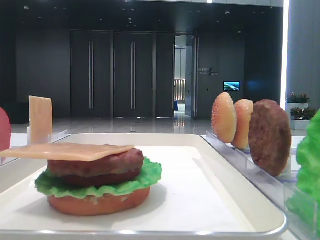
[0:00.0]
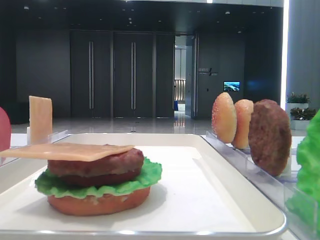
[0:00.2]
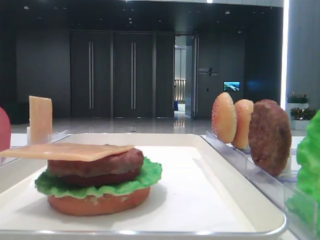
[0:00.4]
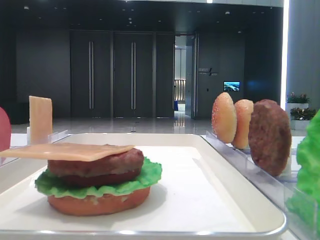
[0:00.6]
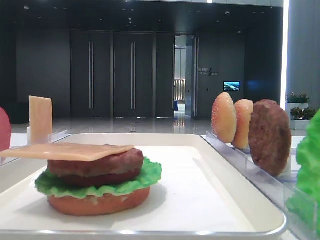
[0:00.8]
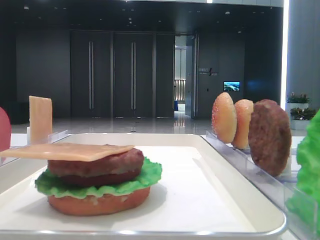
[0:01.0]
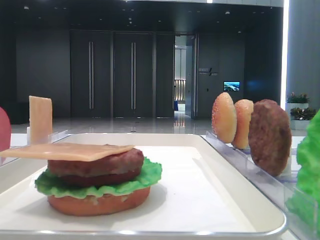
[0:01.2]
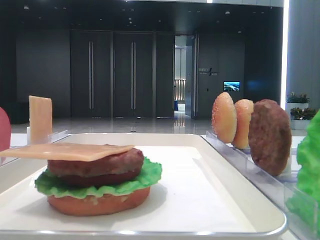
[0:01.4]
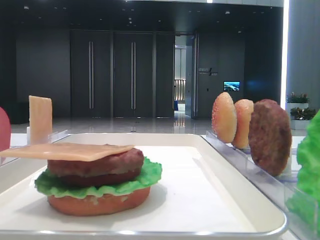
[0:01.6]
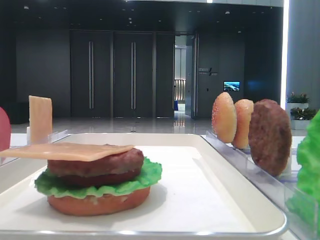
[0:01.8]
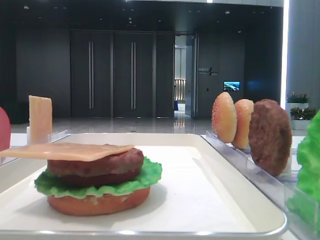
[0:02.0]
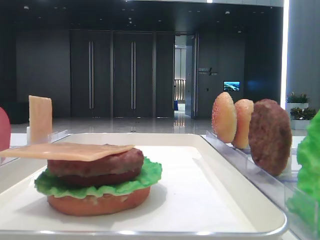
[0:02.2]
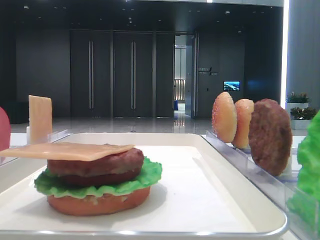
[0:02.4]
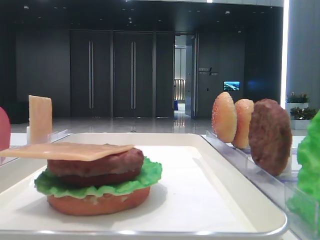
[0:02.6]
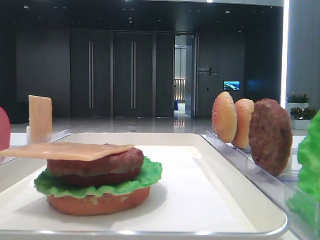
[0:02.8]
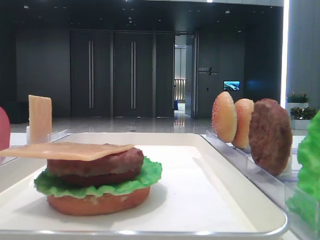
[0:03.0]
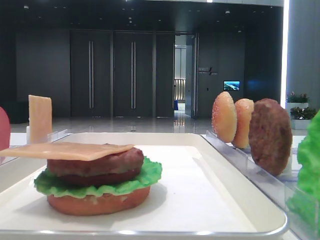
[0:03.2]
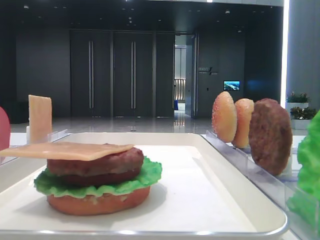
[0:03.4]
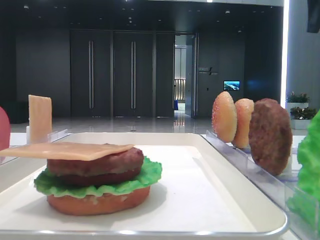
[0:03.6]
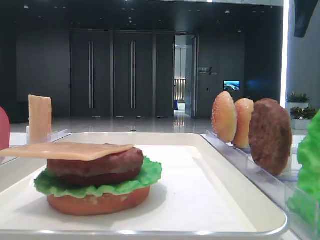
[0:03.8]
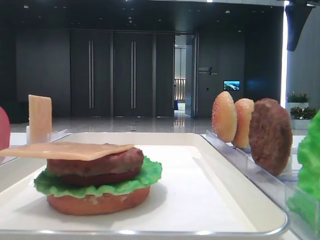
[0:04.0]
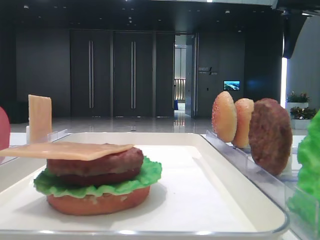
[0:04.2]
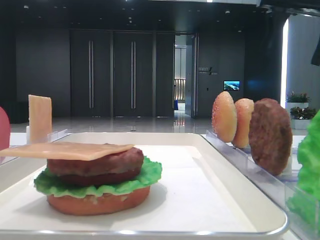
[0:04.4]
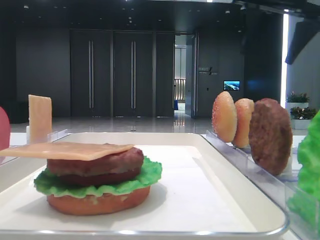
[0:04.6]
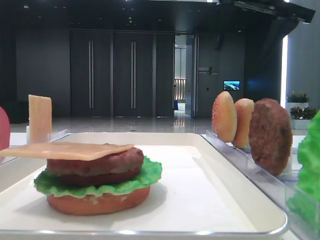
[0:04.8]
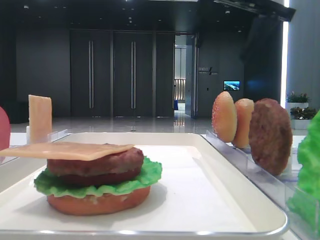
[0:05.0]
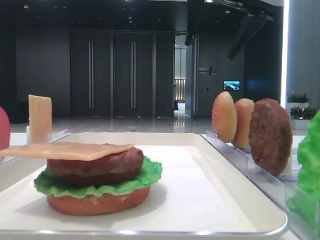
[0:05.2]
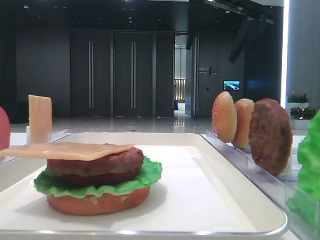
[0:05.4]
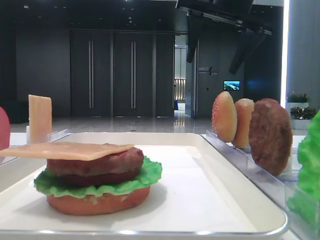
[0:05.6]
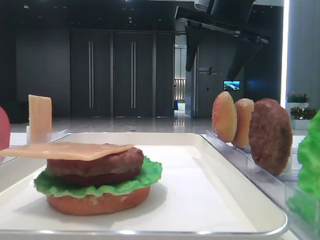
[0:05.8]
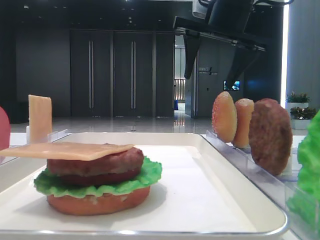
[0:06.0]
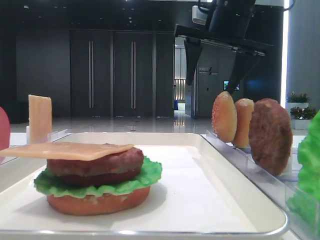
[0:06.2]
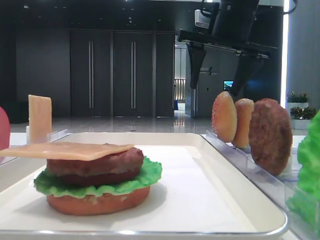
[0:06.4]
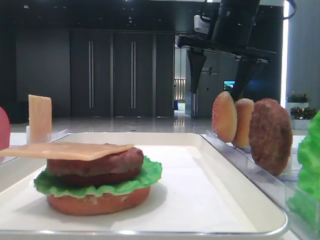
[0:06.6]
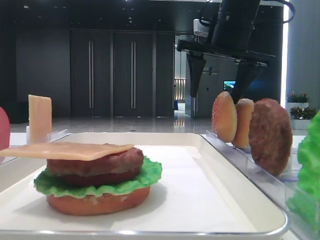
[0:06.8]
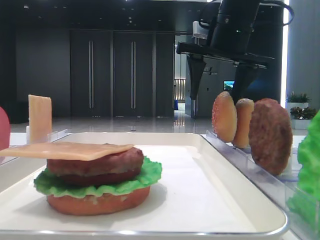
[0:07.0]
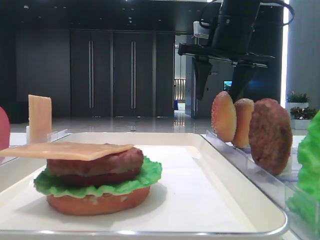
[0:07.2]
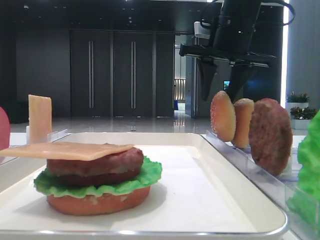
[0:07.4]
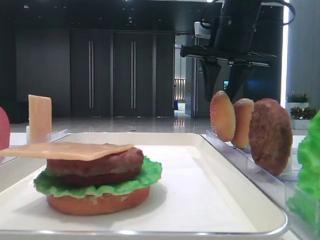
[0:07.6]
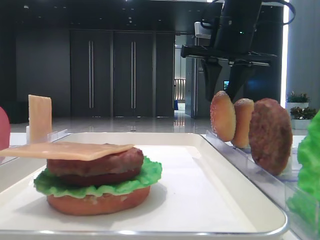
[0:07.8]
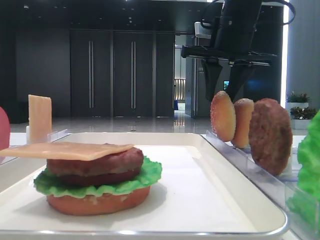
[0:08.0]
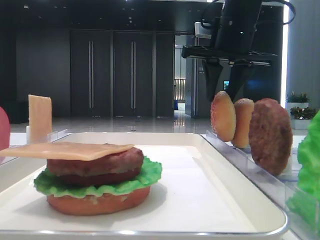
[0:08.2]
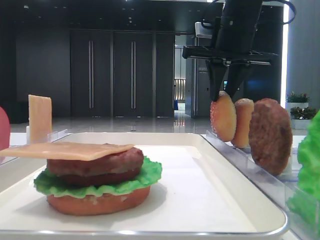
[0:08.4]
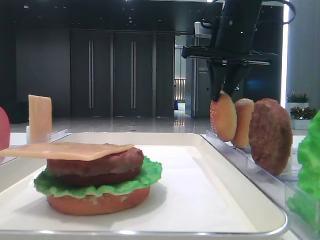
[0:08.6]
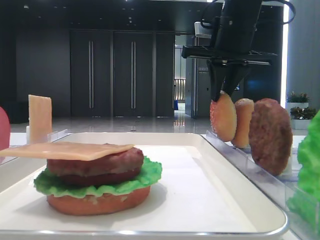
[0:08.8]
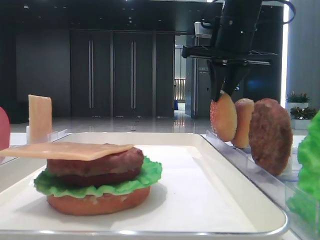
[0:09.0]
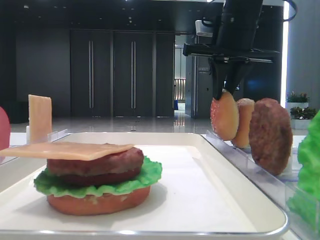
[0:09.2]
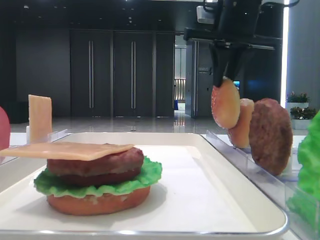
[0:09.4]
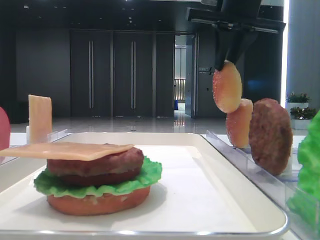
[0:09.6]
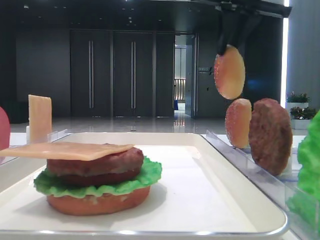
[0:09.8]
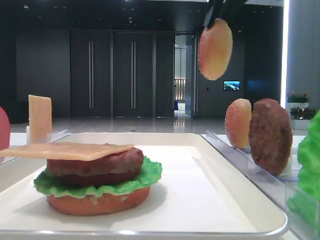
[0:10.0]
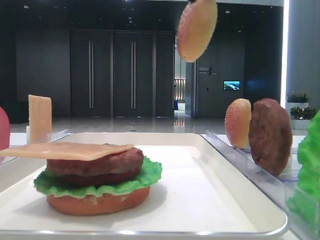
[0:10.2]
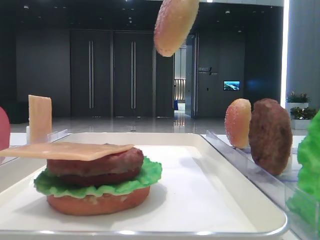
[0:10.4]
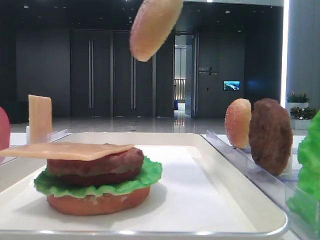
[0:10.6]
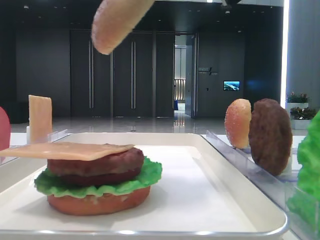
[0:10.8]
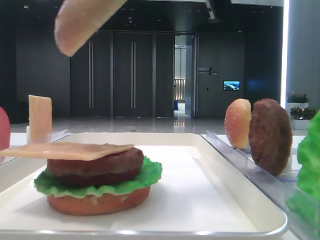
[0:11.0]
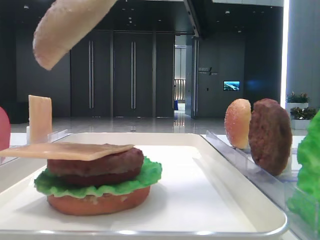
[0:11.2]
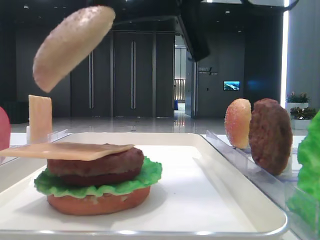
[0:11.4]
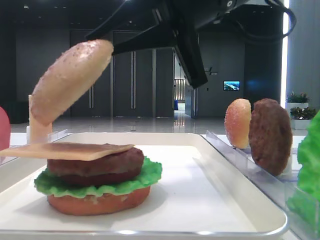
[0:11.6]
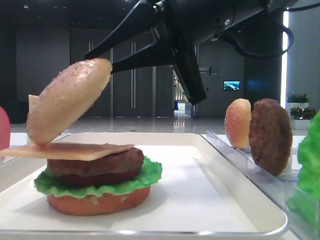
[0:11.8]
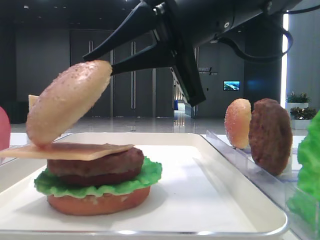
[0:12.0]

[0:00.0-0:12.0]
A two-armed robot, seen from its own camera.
Step, 0.0 to 8.4 s: Pick up the top bread slice with the right hand.
1.6 to 3.0 s: The right gripper is displaced forward by some 25 cm.
3.0 to 4.4 s: The right gripper moves forward, roughly 15 cm.
4.4 to 6.0 s: The right gripper shifts roughly 15 cm to the left.
6.0 to 7.6 s: The right gripper closes up. Meanwhile the left gripper closes up.
7.6 to 9.0 s: The right gripper closes its fingers.
9.0 to 10.4 s: The right gripper goes approximately 15 cm upward and backward.
10.4 to 12.0 s: The right gripper goes some 15 cm downward.

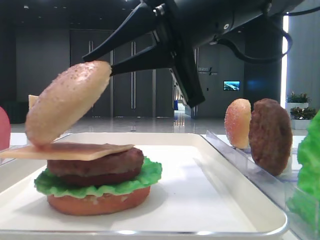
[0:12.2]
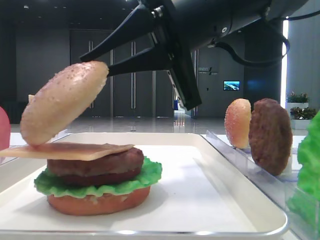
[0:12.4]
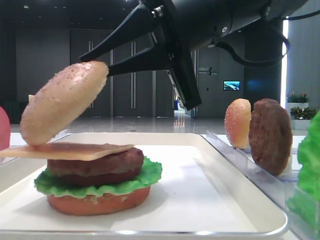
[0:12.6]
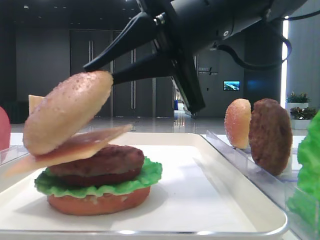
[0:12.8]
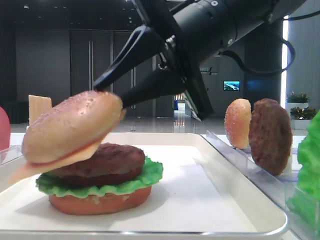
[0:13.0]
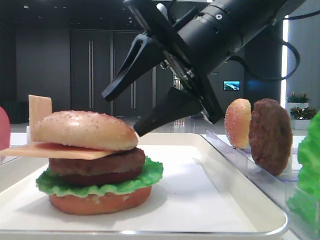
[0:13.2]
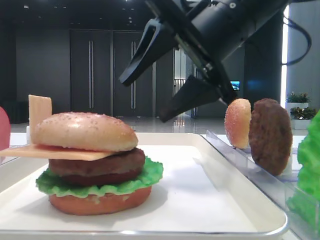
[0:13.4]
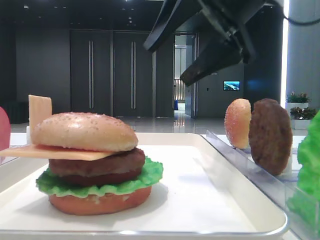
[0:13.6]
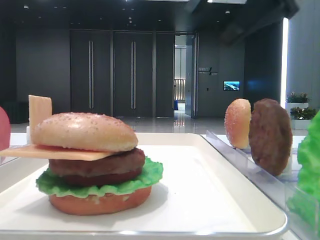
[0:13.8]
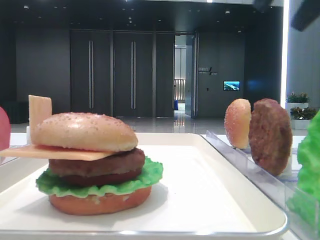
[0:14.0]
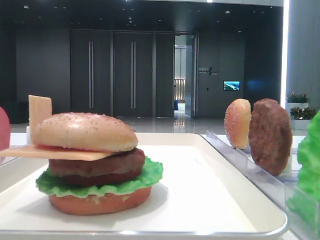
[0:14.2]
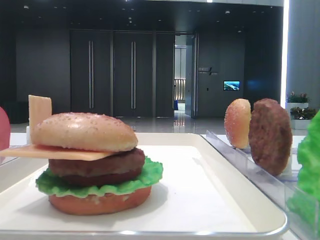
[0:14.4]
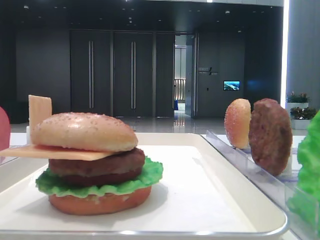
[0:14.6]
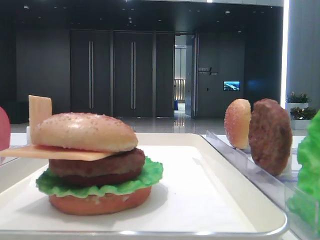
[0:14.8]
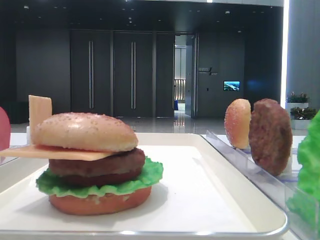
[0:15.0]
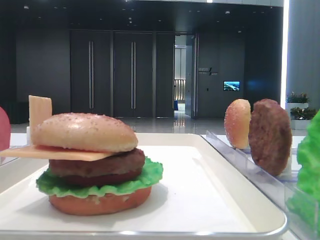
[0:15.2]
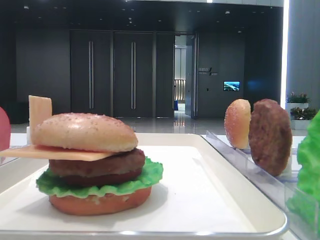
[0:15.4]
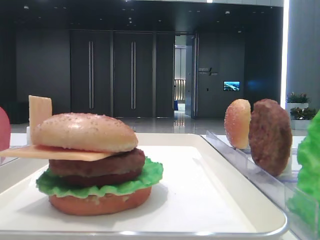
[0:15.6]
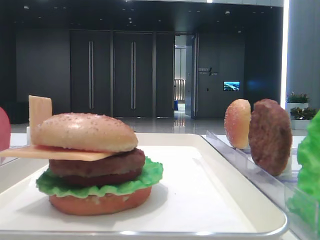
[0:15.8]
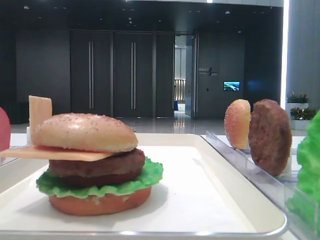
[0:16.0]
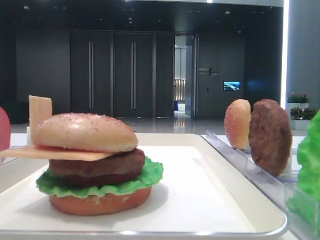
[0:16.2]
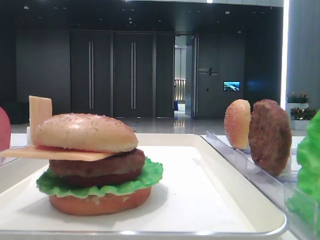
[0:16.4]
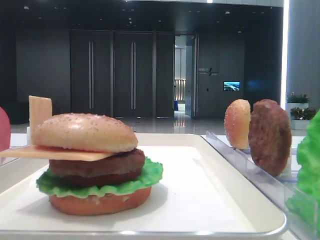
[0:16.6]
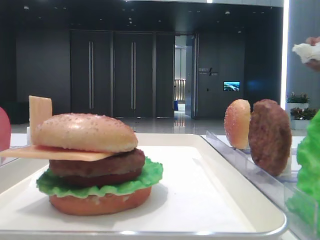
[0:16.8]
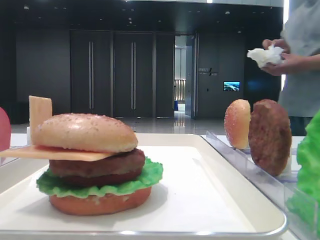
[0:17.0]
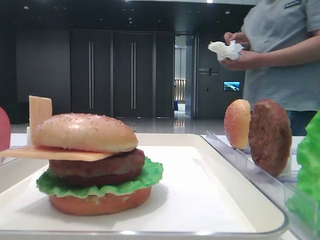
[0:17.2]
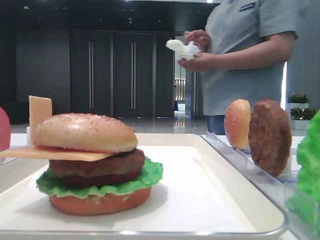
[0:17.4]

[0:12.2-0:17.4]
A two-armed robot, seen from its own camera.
12.2 to 14.0 s: The right gripper heads to the right and upward, covering approximately 20 cm, and opens.
14.0 to 15.6 s: The right gripper shifts approximately 25 cm backward.
15.6 to 17.4 s: There are only small adjustments of the grippers.

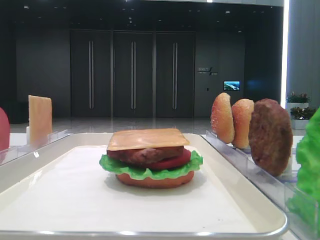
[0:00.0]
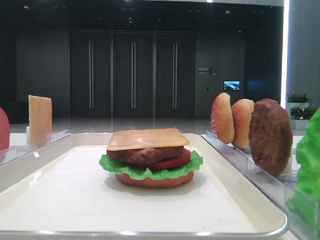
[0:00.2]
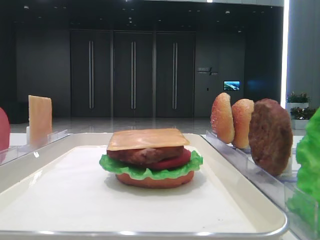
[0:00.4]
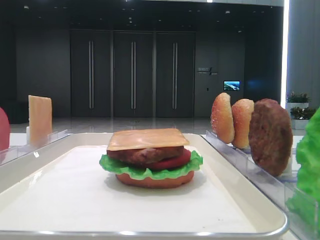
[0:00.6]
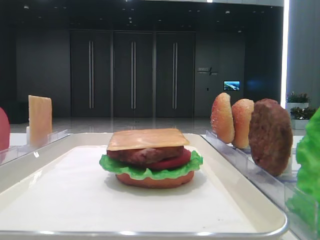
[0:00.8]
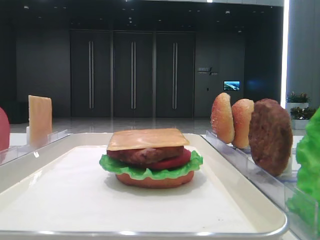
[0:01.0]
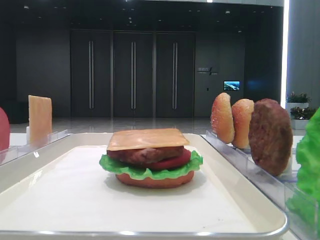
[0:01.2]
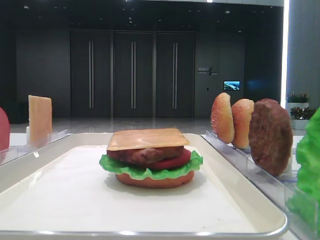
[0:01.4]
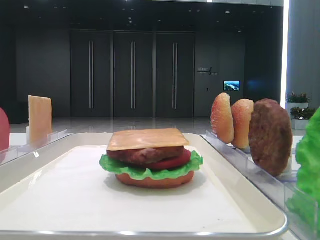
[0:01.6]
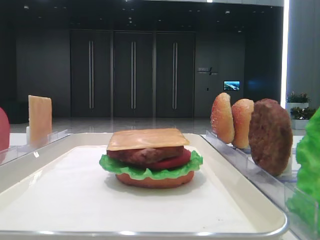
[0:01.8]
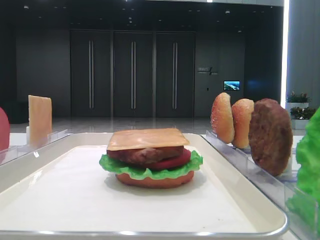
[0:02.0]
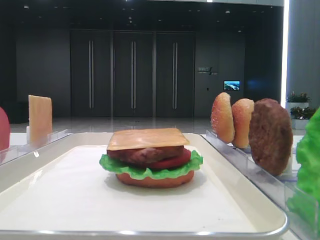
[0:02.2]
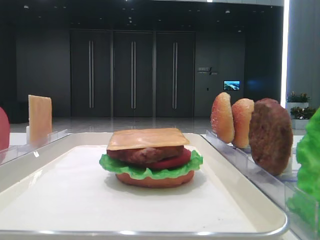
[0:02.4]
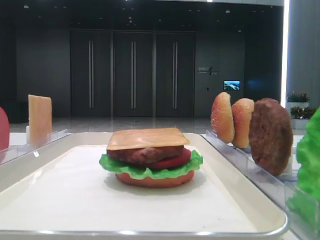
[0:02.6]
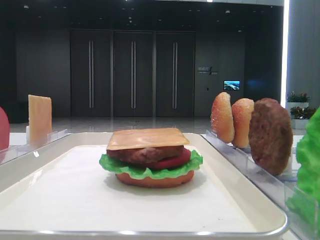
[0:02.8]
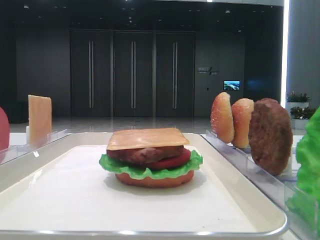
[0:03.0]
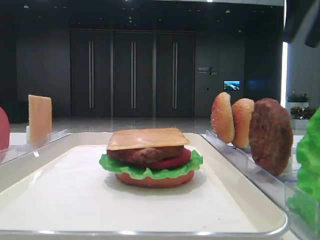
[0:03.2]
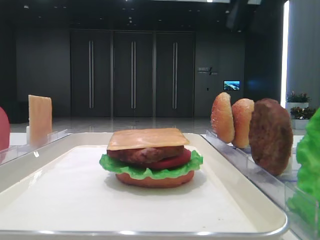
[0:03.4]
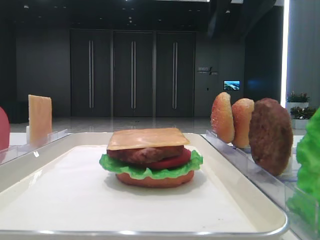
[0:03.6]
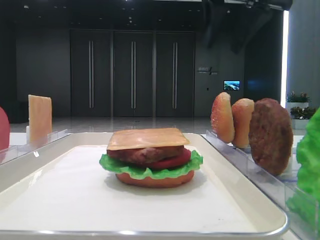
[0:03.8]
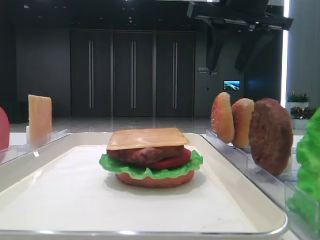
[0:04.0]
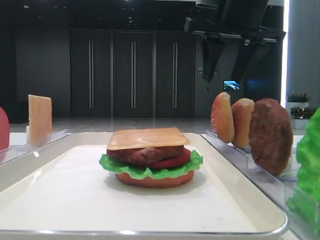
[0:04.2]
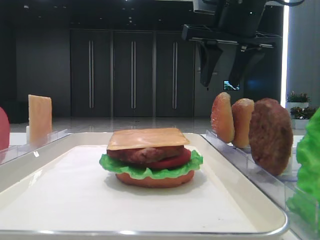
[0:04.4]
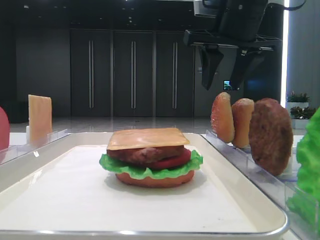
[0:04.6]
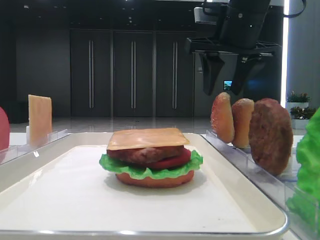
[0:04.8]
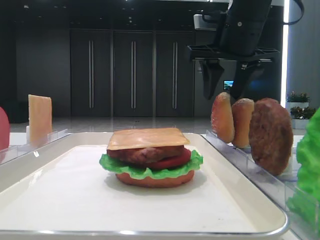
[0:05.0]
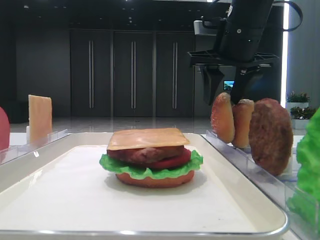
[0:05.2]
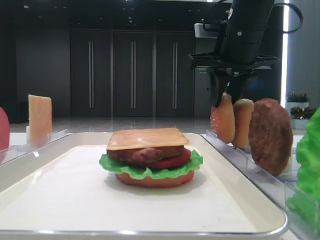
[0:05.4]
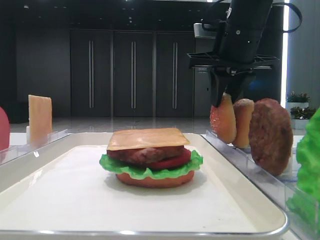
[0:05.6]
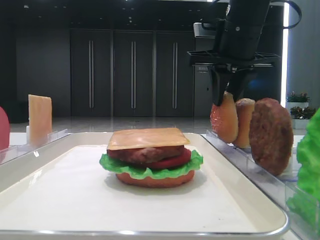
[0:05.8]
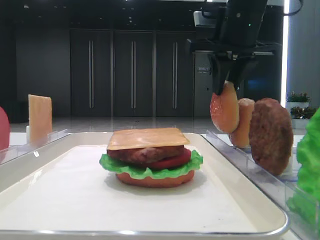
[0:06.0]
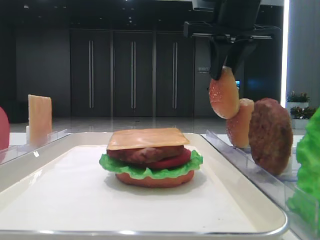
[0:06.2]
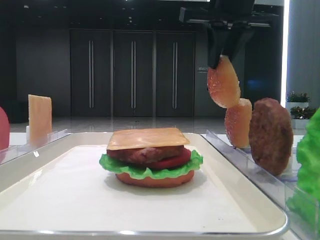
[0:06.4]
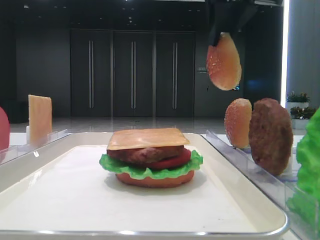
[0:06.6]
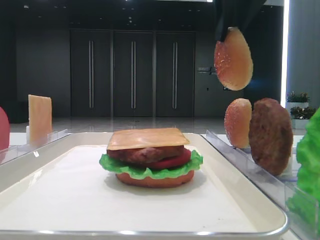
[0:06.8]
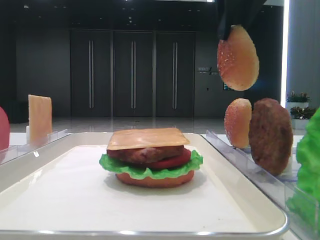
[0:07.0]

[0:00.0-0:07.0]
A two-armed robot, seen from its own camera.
Step, 0.0 to 5.6 s: Pick up the top bread slice with the right hand.
2.8 to 4.2 s: The right gripper travels to the left by about 20 cm.
4.2 to 5.6 s: The right gripper moves about 5 cm, and closes up.
5.6 to 7.0 s: The right gripper is displaced upward and backward by some 15 cm.
